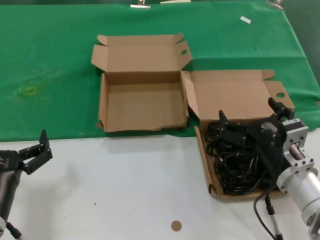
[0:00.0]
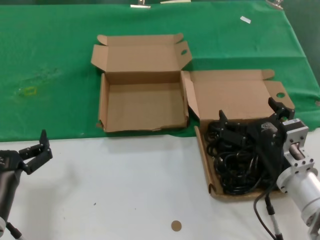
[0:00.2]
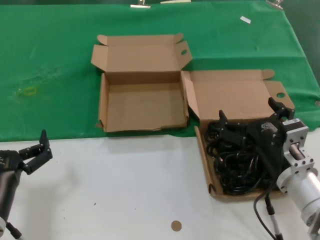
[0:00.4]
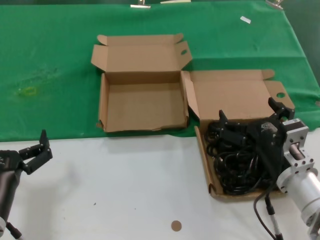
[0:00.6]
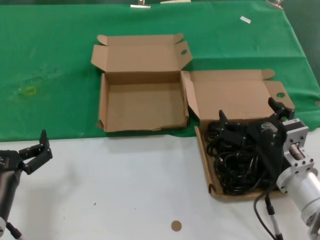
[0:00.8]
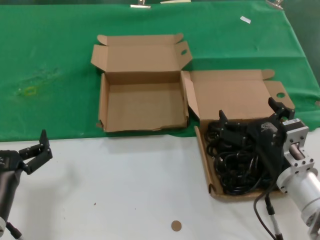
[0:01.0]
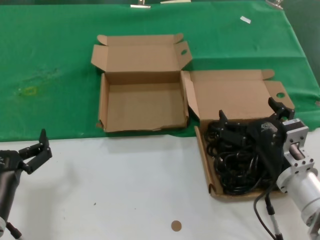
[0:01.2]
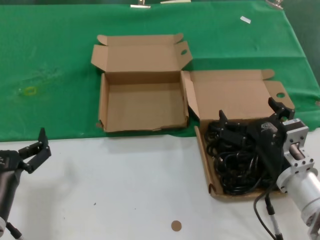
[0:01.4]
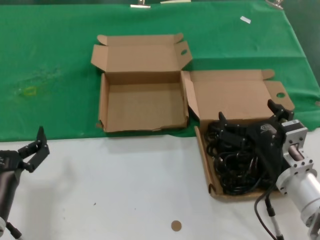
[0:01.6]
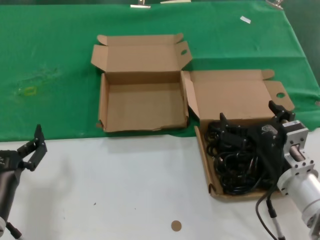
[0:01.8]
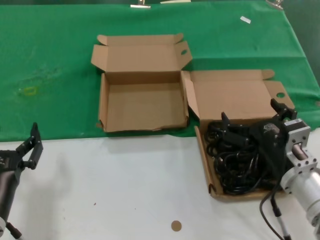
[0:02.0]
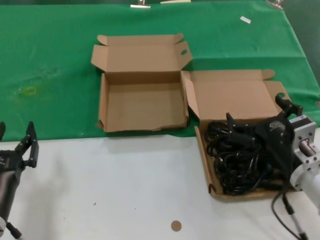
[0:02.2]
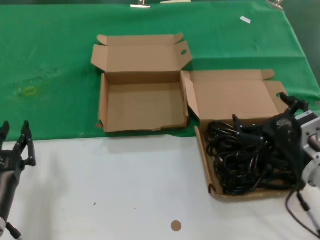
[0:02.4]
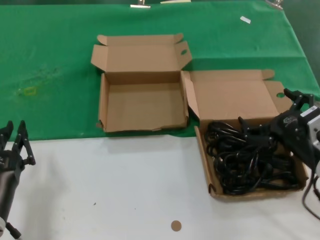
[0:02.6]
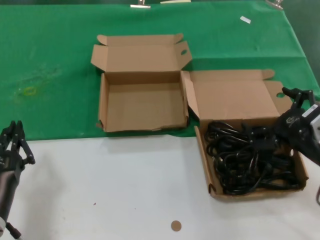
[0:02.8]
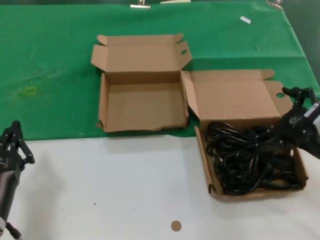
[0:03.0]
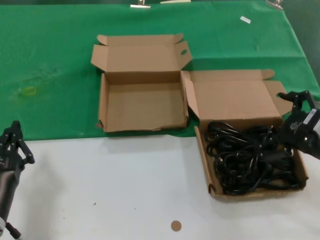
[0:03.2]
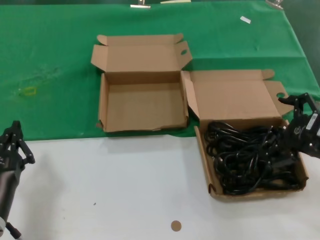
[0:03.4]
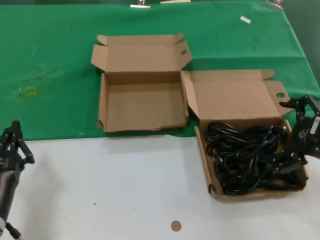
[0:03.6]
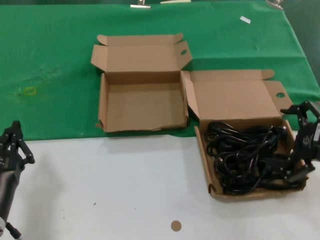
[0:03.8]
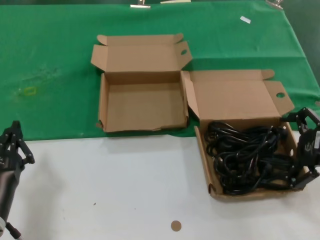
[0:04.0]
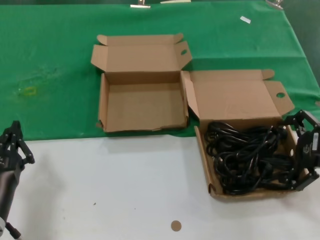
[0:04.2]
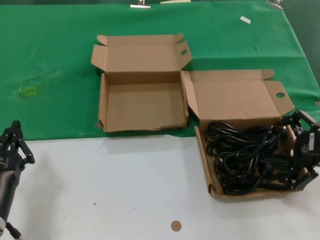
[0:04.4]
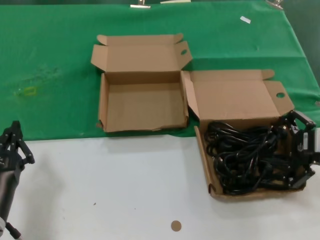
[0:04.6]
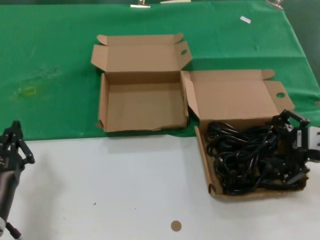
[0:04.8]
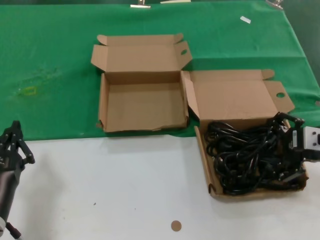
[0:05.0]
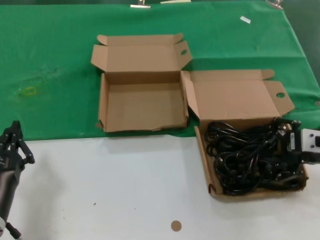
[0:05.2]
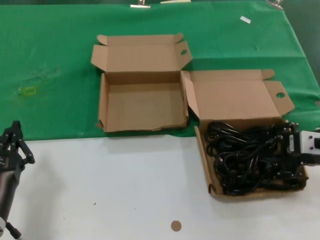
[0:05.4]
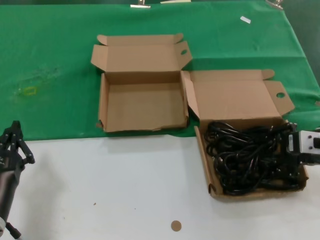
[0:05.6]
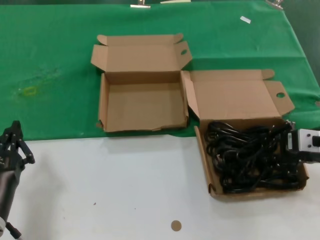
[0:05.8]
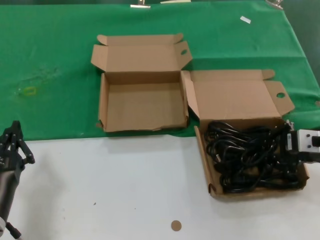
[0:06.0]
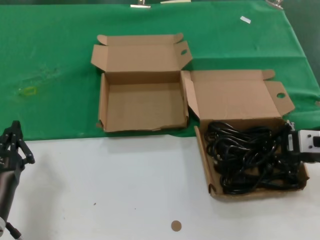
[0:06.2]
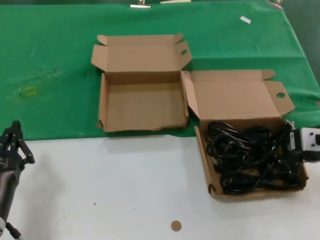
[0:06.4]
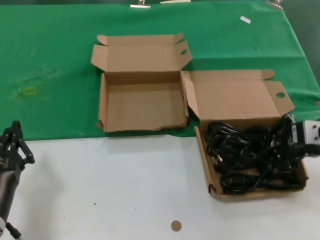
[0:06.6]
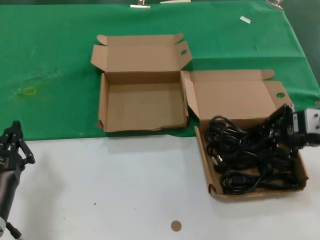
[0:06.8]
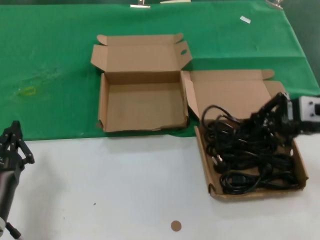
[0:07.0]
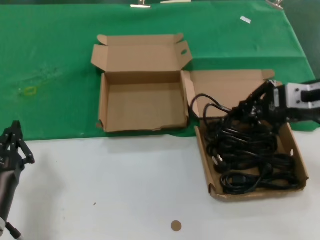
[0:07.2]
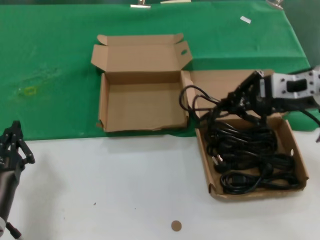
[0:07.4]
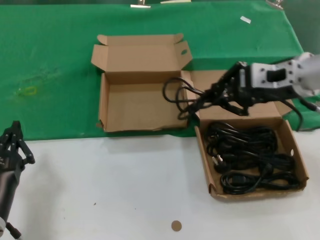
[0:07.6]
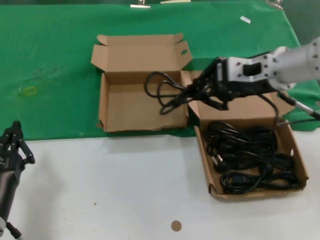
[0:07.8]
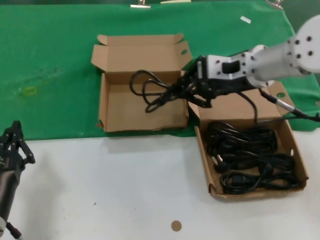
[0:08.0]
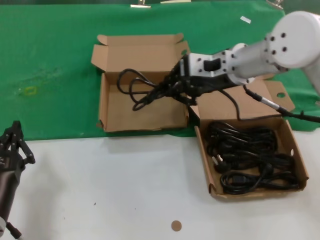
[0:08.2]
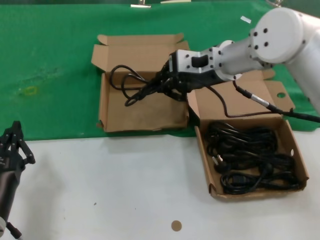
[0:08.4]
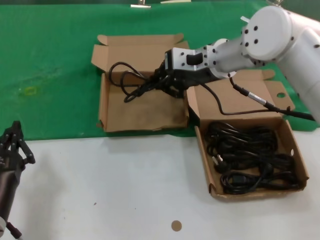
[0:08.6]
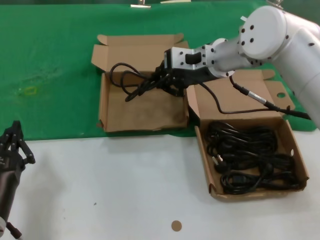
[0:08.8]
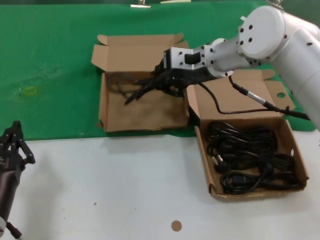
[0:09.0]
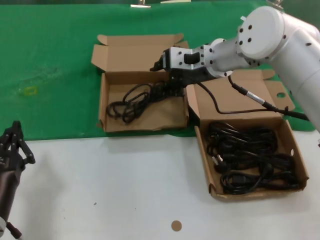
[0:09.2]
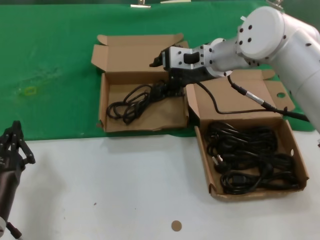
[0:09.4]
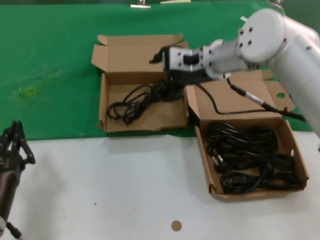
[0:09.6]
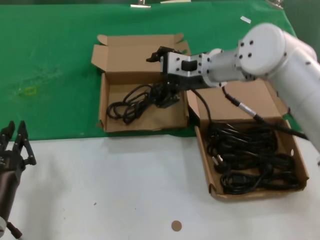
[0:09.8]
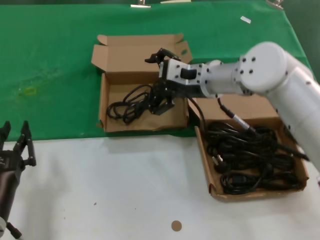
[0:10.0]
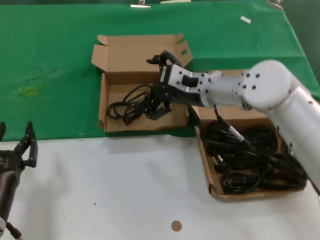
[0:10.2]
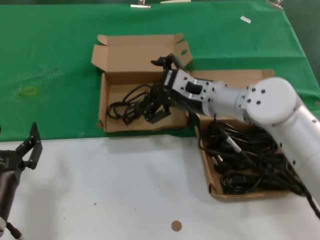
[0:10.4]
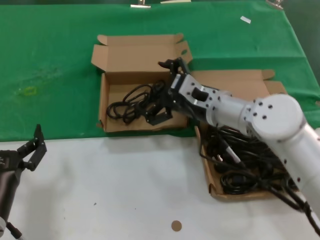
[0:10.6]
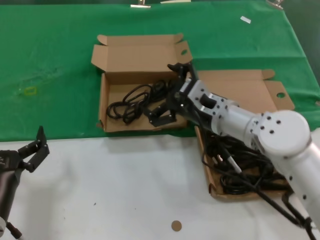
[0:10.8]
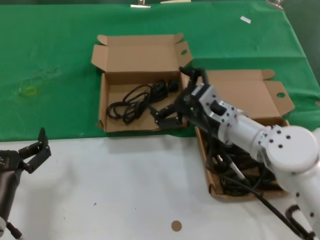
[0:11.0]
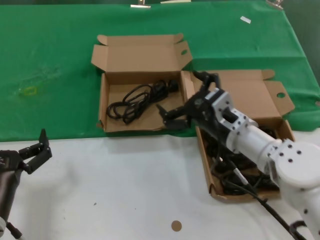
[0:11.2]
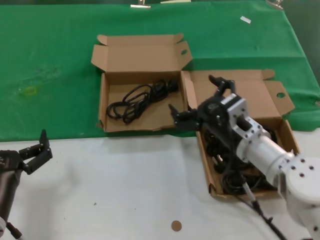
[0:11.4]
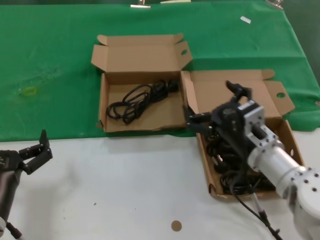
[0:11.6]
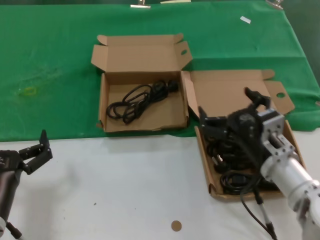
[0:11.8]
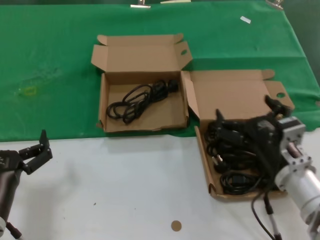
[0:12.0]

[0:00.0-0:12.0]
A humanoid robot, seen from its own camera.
Task of the whole recording: take the parts from the box containing them and put them into an empty box.
Step, 0.0 to 6.0 s: Grasp the data cable.
Step, 6.2 to 9.2 s: Place the data cable in the another box.
0.0 to 1.6 s: Both hands stay about where they are.
1.6 to 3.0 s: The right hand goes roughly 10 cm to the right and upward.
3.0 to 4.4 s: The right hand moves some 5 cm.
4.4 to 6.0 s: The hands move only a little.
6.0 to 7.6 s: The right hand is displaced upward, to the left and forward by about 15 cm.
7.6 to 9.0 s: The right hand goes about 15 cm to the left and forward.
9.0 to 10.4 s: The right hand is displaced downward by approximately 10 cm.
10.4 to 12.0 s: The right hand shifts approximately 20 cm backward, downward and to the right.

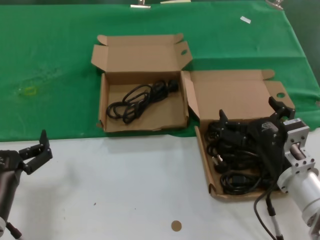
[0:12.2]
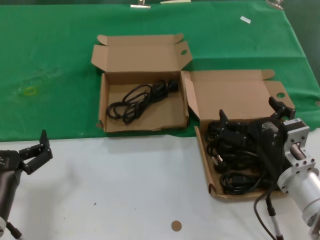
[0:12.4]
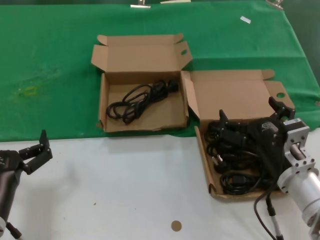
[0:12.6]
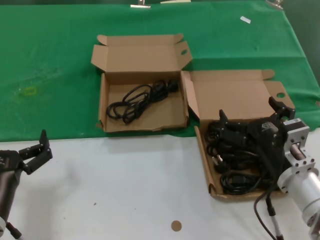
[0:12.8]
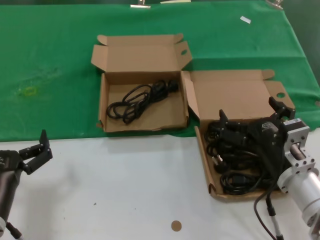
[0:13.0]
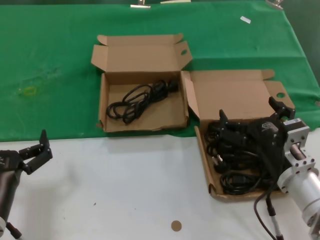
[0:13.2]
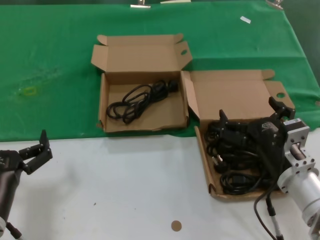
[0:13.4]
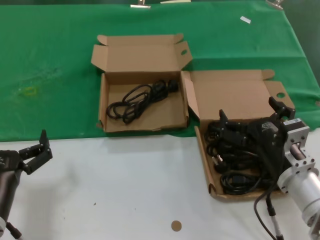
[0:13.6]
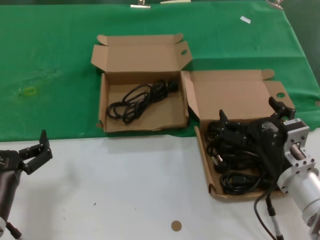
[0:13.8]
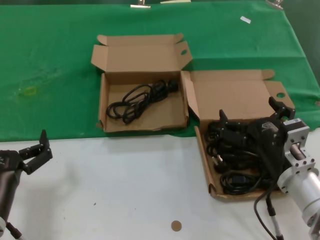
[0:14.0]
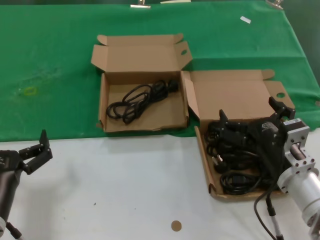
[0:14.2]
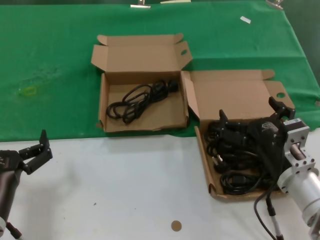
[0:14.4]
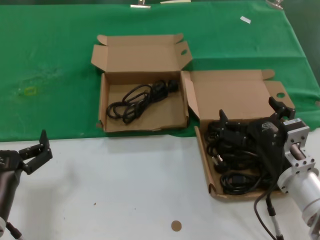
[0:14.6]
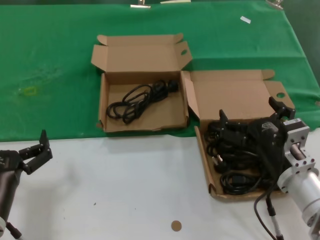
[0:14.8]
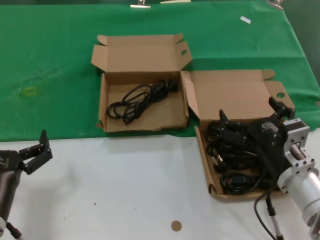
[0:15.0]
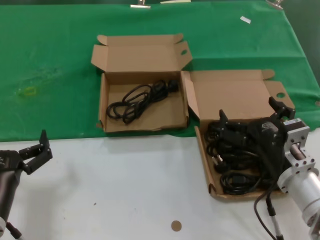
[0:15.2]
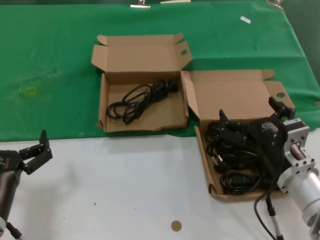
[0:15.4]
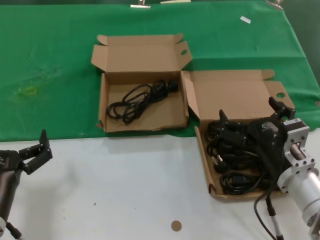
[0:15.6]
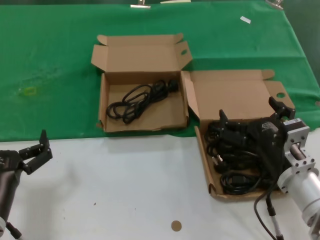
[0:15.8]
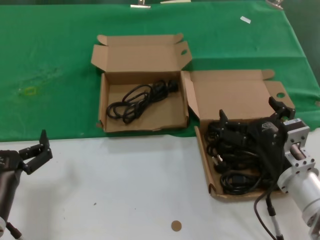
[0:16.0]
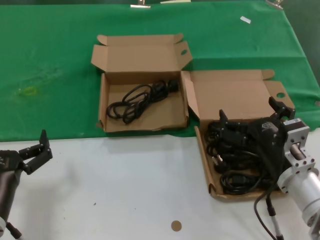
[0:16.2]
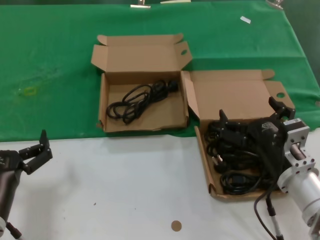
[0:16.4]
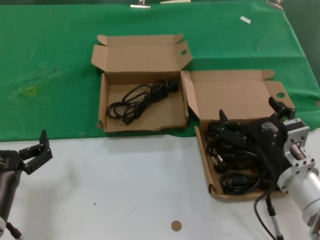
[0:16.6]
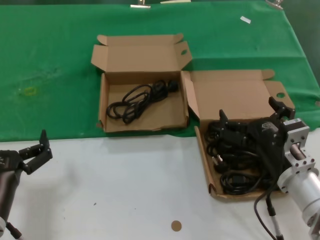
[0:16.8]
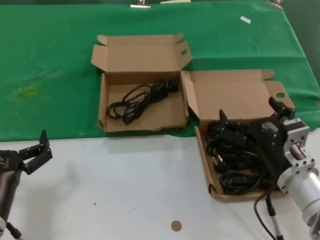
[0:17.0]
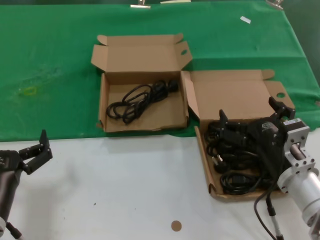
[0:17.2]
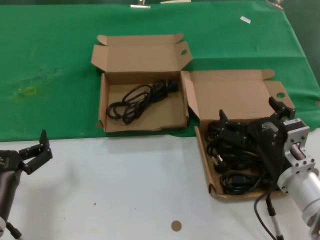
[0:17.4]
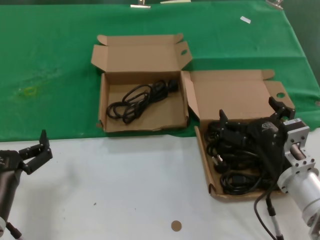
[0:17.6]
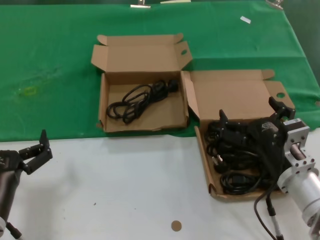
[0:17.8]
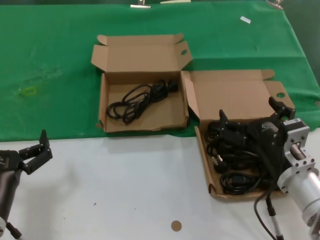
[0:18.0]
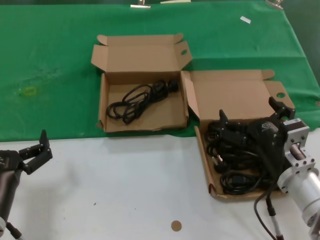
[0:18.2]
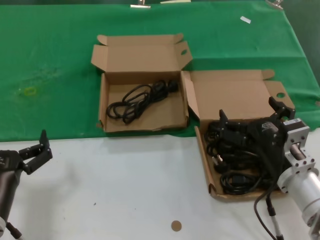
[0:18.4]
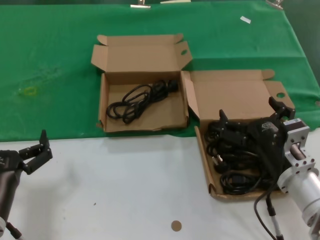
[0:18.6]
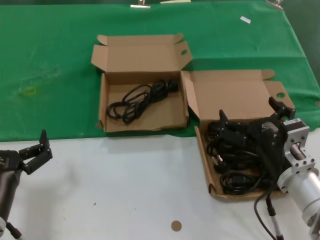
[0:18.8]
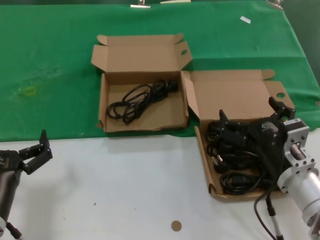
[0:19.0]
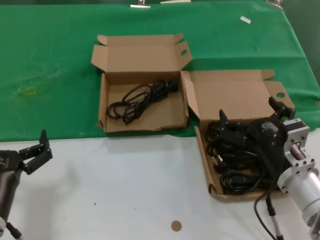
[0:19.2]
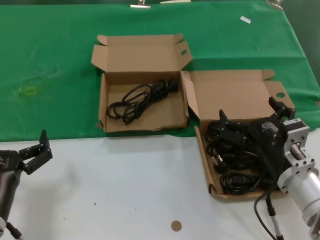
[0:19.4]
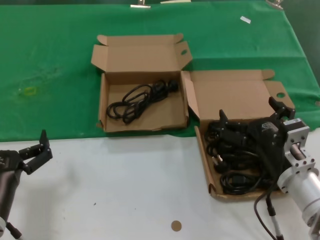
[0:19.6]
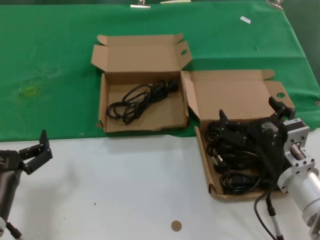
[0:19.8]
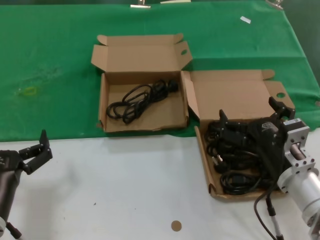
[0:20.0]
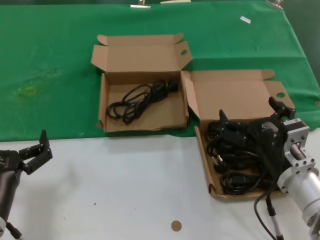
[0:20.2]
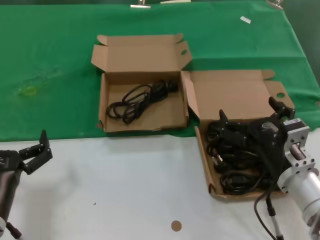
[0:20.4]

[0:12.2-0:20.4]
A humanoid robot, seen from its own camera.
Task of the whole recording: take the parts from the box containing them and put them into an empty box.
12.2 to 20.4 s: Both hands stay put.

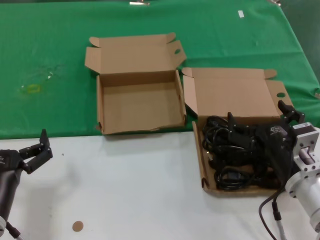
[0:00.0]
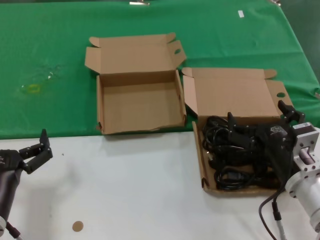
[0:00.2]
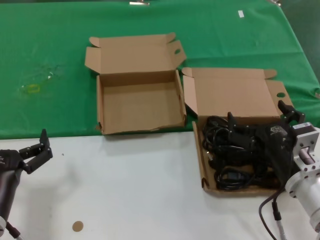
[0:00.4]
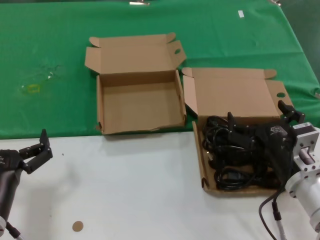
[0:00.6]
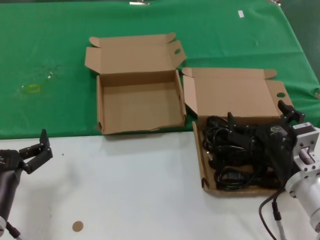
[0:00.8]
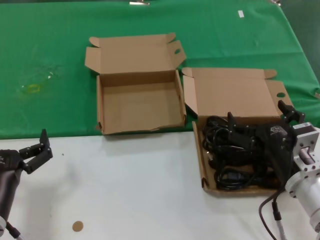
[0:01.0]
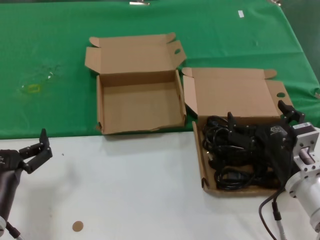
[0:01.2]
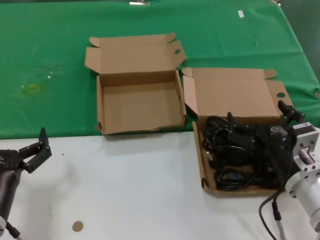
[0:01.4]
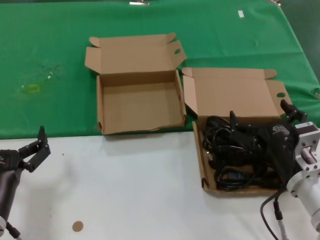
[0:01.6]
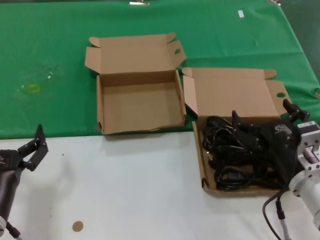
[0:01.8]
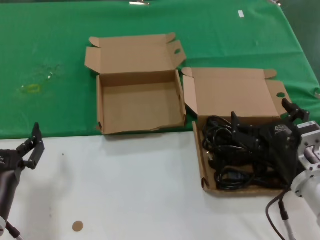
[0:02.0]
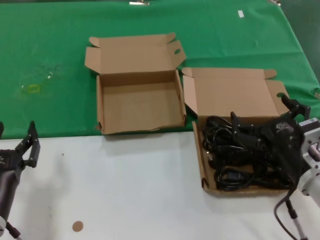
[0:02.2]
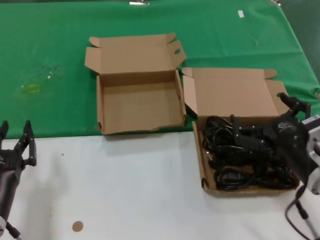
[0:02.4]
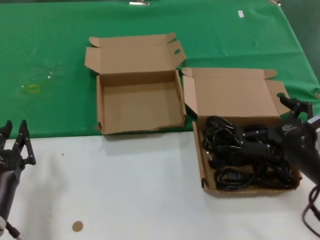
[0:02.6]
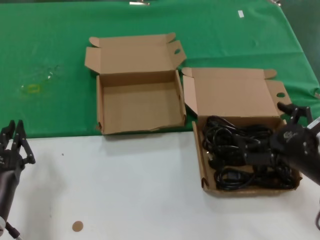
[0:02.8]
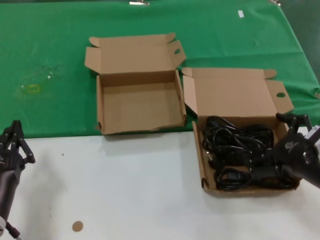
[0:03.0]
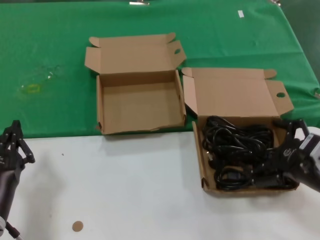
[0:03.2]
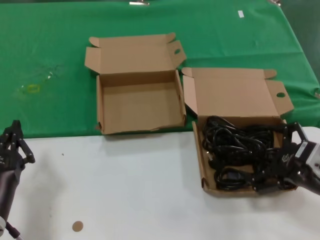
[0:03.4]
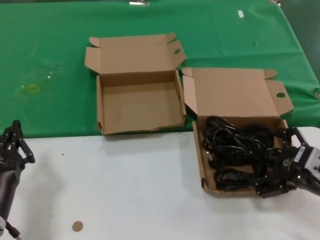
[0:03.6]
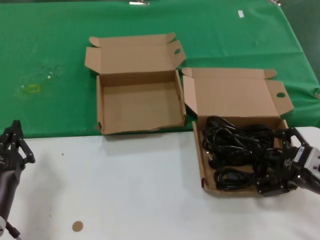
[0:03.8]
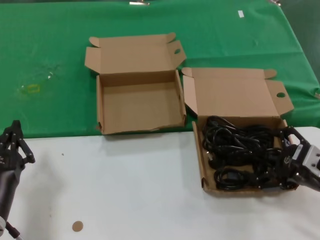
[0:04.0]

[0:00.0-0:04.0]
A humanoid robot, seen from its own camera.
Task of the whole recording: take the parts from the box containing them and put them into an empty box.
0.0 to 1.4 s: Both hands stay about where they are.
1.4 to 2.6 s: The right hand is displaced upward by some 5 cm.
2.6 to 4.0 s: The right hand moves to the right, some 5 cm.
